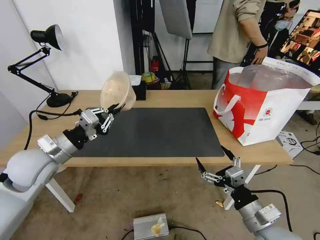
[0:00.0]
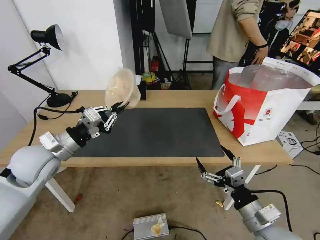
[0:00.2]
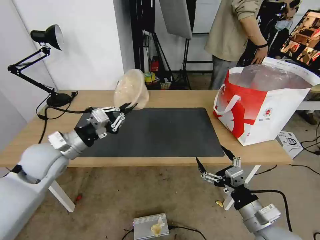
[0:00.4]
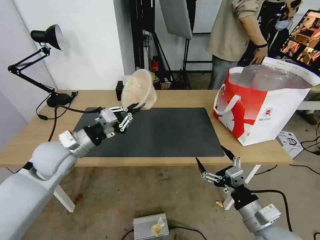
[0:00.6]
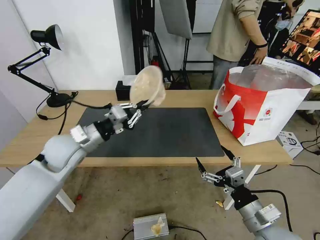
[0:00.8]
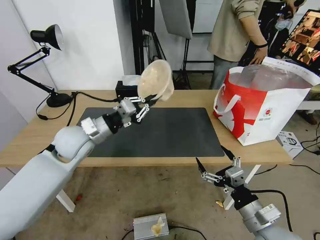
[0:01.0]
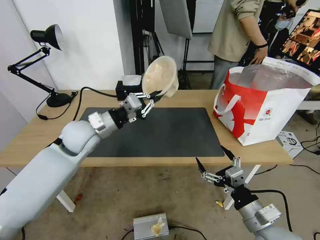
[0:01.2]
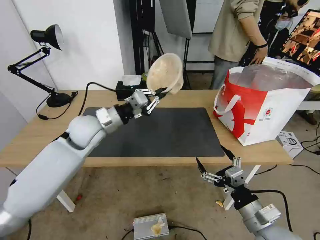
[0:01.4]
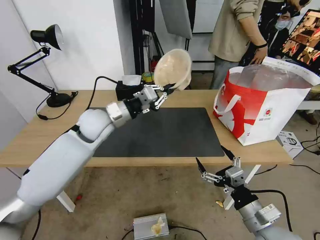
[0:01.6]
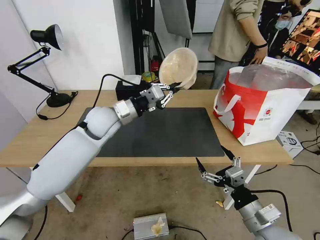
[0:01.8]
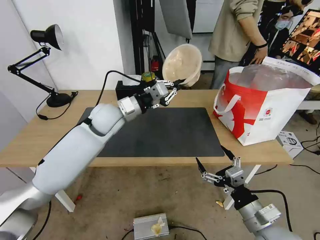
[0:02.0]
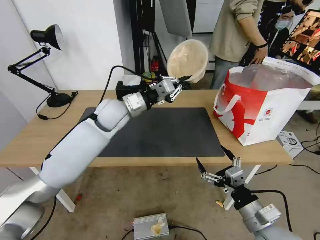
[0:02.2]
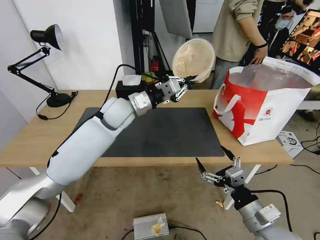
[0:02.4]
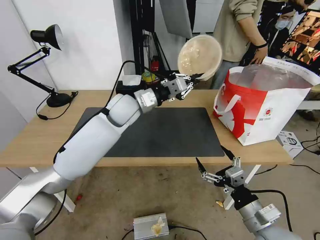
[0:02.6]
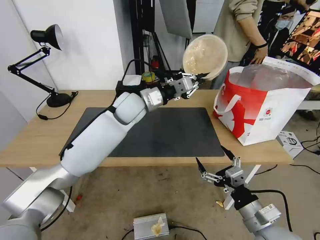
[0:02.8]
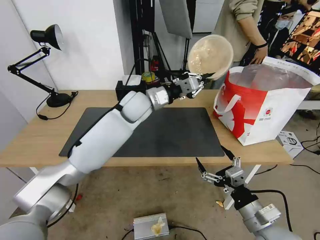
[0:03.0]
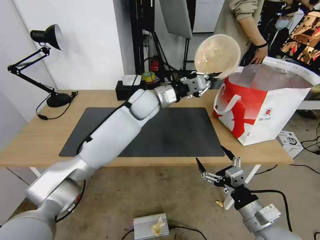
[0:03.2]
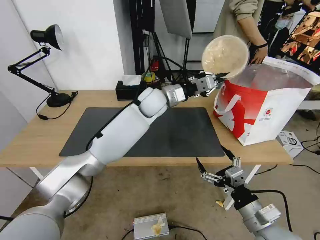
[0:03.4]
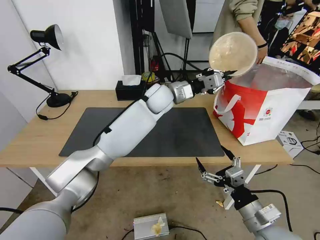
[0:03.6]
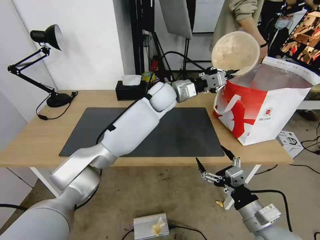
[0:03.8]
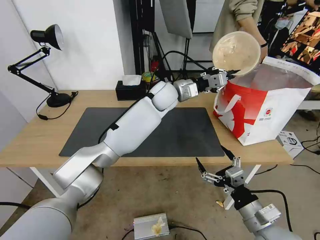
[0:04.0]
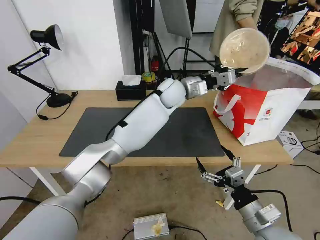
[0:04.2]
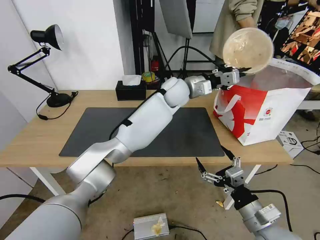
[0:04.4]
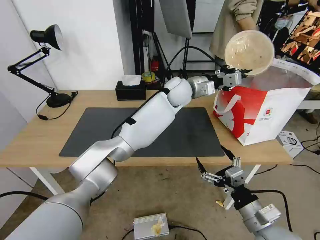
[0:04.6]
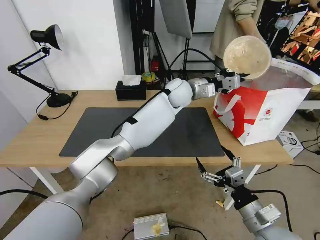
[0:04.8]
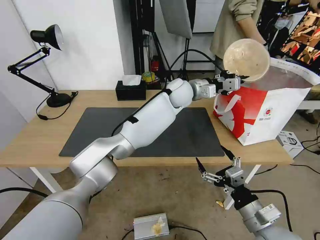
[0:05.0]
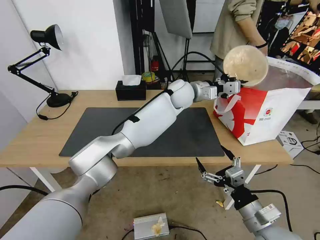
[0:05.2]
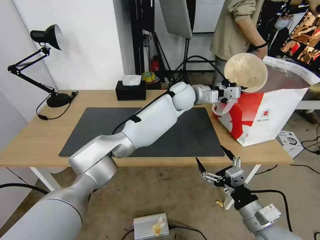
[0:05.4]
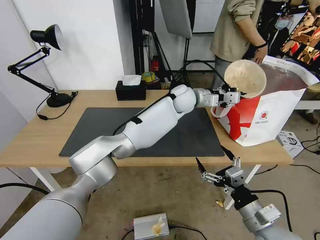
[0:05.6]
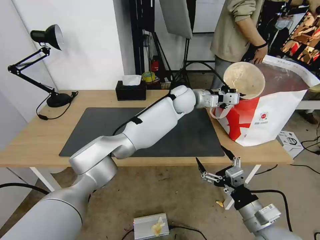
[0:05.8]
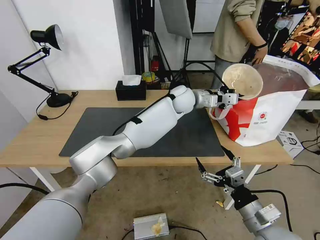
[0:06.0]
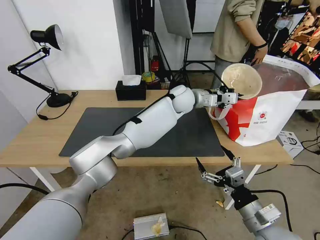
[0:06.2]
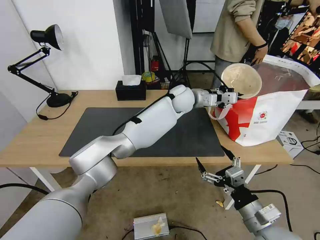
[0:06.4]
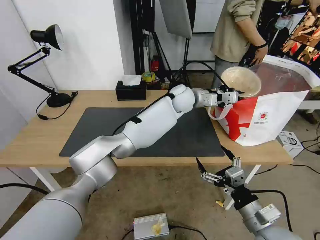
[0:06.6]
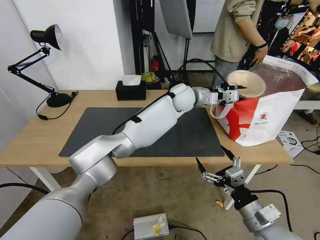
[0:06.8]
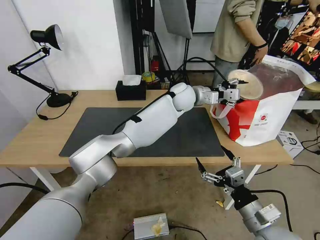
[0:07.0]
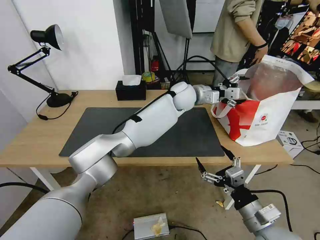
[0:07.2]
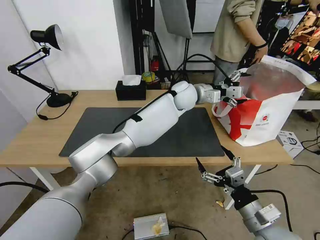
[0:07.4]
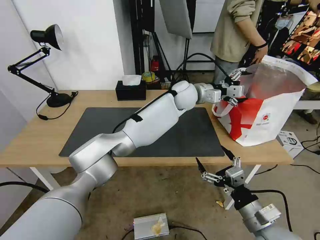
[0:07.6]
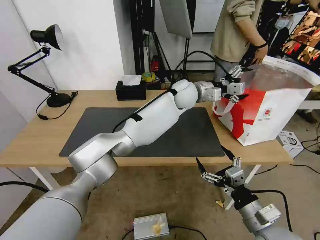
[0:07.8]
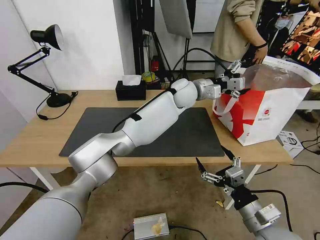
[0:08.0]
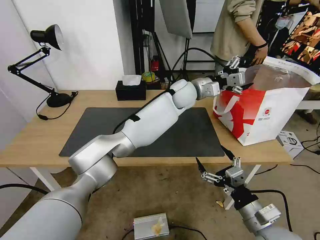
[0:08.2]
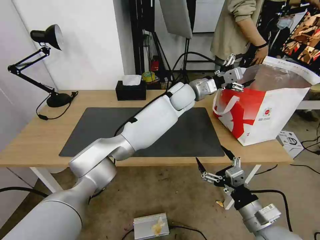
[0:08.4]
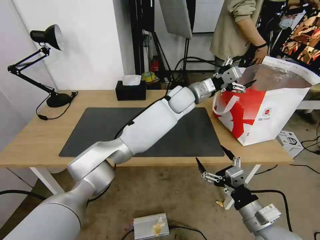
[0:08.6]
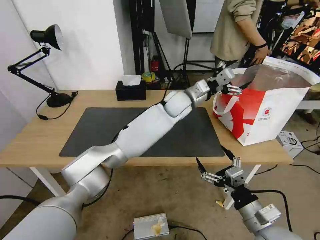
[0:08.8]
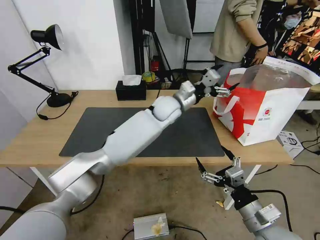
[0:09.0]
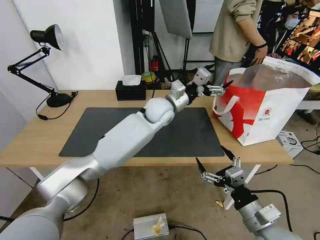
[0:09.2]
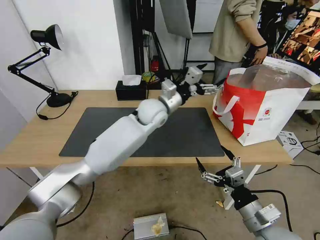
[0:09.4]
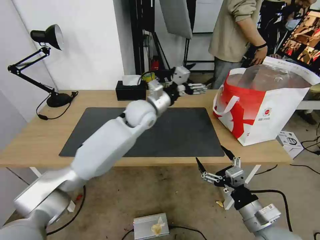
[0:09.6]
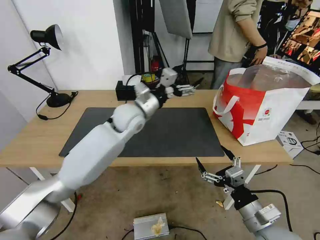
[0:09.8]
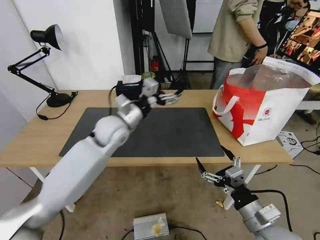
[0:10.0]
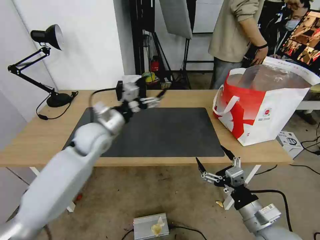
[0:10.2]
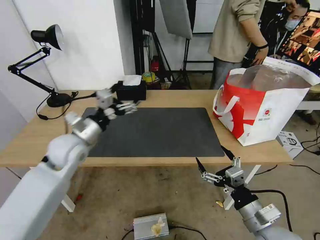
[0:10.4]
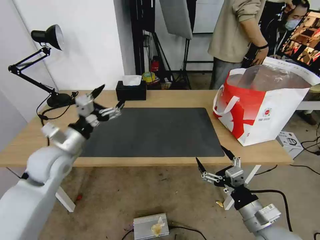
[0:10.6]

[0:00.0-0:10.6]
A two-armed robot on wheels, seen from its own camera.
Task of the whole recording: Pick up the trash from the table and place it into the takeout bag.
0:00.0 to 0:01.6: The left gripper goes approximately 15 cm forward and to the right.
0:01.6 to 0:03.0: The left gripper heads to the right and forward, covering about 15 cm.
0:03.0 to 0:04.6: The left gripper shifts about 15 cm to the right and forward.
0:04.6 to 0:06.0: The grippers stay close to where they were, moving slightly.
0:06.0 to 0:07.6: The left gripper opens up.
0:07.6 to 0:09.0: The left gripper goes roughly 5 cm to the left.
0:09.0 to 0:10.6: The left gripper goes roughly 40 cm to the left and backward.

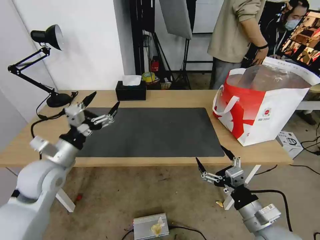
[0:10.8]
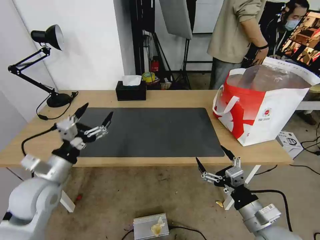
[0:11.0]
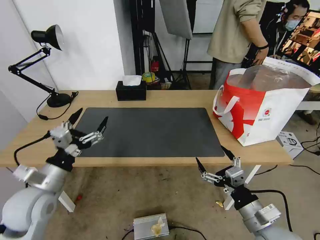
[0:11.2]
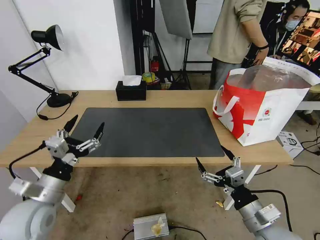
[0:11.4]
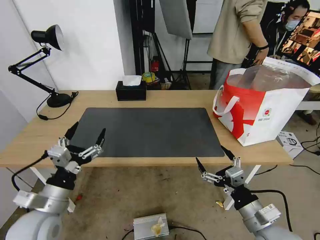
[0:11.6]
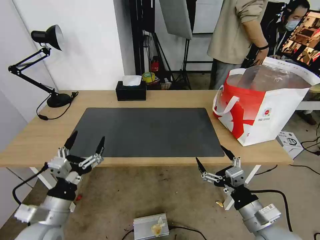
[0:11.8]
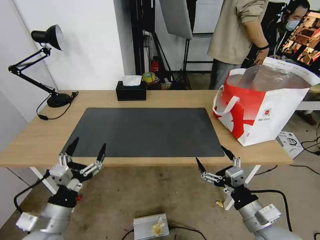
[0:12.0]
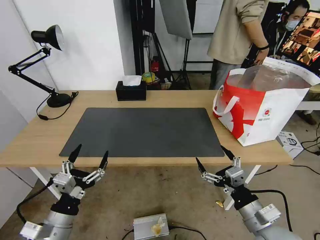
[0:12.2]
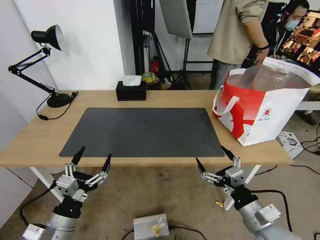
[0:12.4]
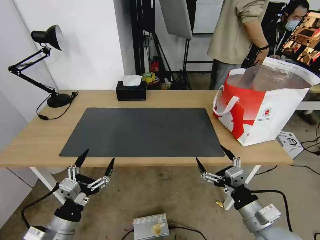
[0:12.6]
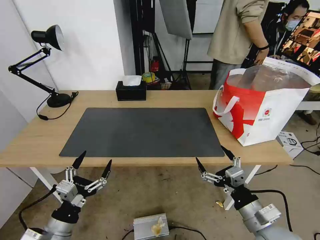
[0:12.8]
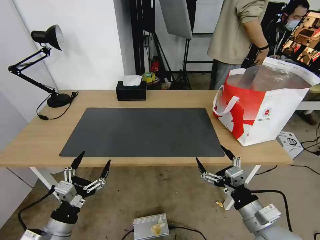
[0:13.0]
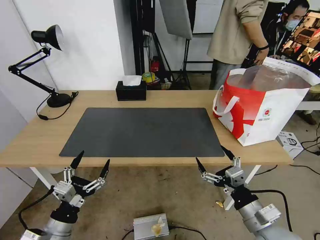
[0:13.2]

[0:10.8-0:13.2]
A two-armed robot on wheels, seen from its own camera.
Task of the whole recording: Pick up the trash from the table and place it into the takeout bag.
0:10.8 to 0:12.0: The left gripper moves backward and downward, some 15 cm.
0:12.0 to 0:13.2: The grippers move only a little.

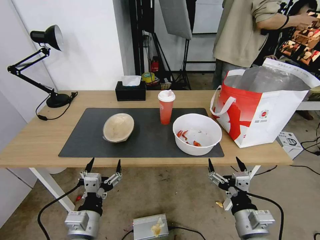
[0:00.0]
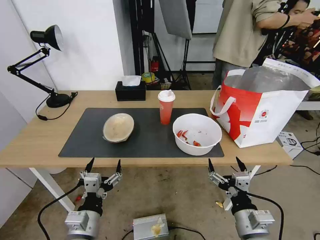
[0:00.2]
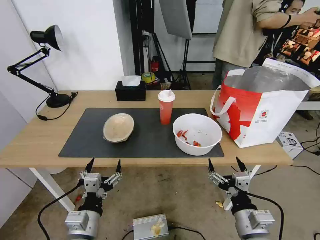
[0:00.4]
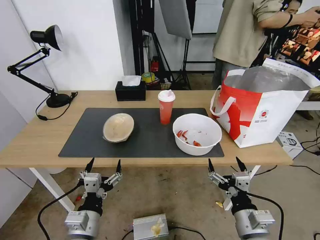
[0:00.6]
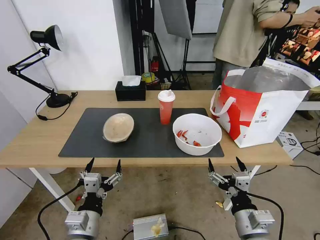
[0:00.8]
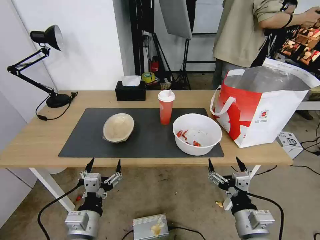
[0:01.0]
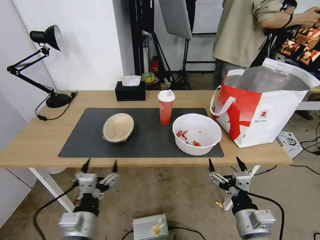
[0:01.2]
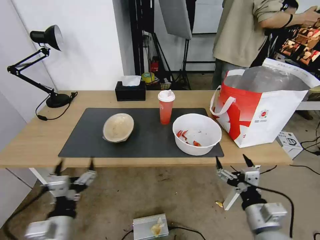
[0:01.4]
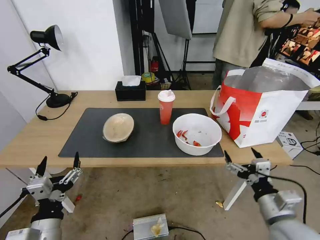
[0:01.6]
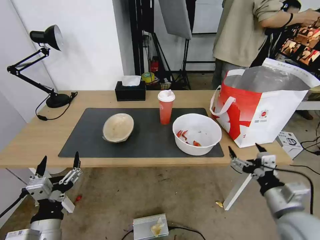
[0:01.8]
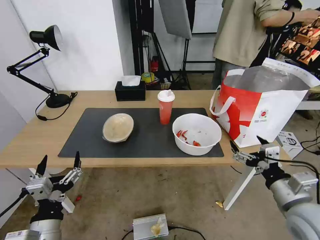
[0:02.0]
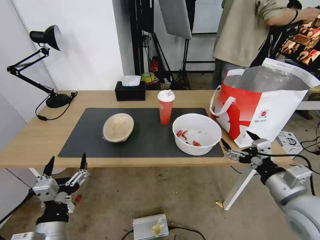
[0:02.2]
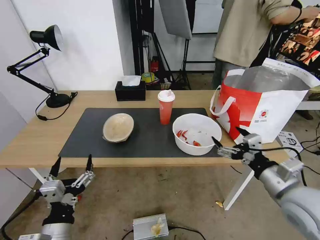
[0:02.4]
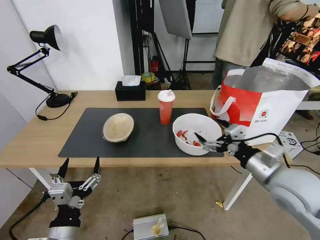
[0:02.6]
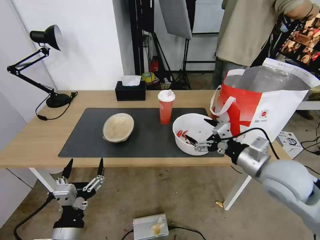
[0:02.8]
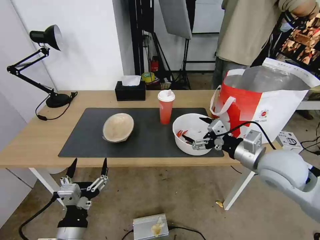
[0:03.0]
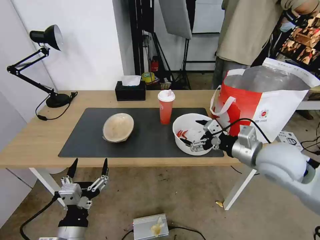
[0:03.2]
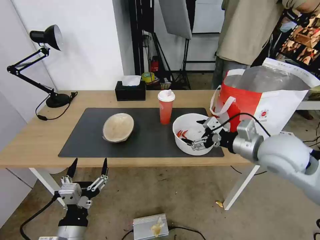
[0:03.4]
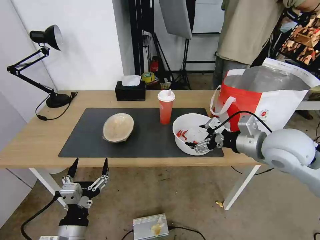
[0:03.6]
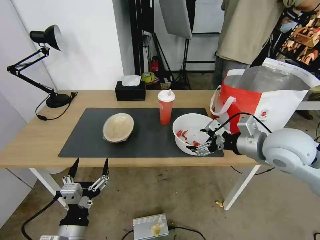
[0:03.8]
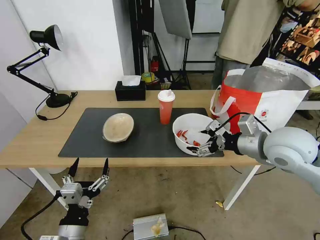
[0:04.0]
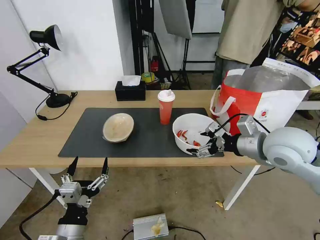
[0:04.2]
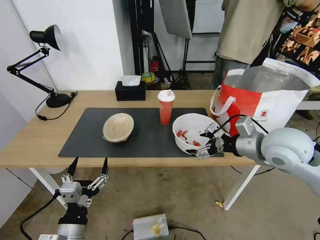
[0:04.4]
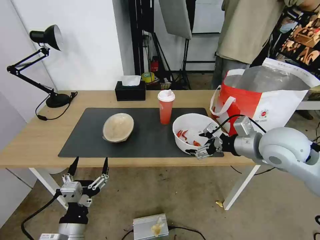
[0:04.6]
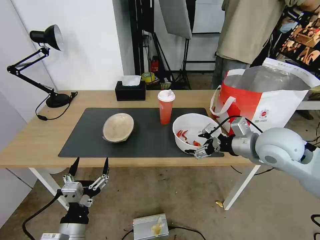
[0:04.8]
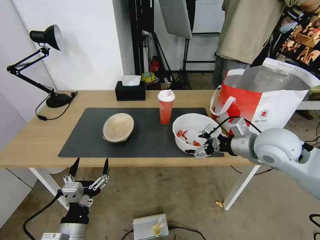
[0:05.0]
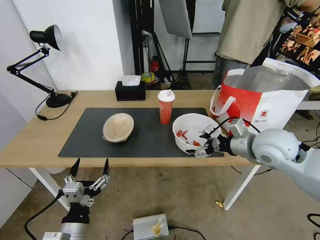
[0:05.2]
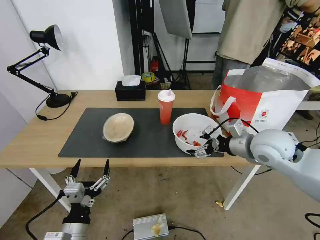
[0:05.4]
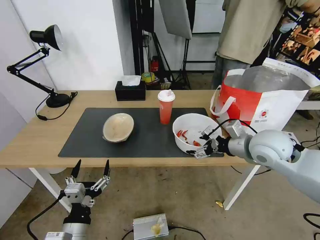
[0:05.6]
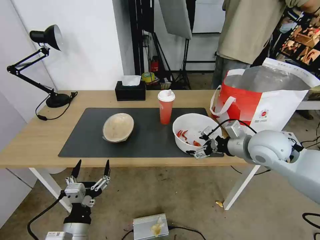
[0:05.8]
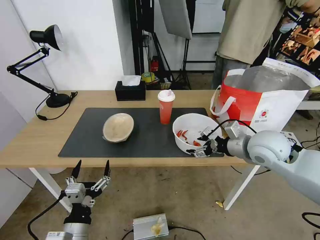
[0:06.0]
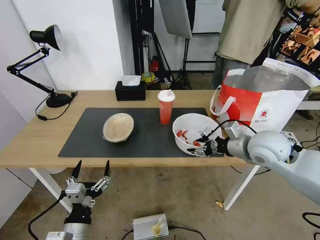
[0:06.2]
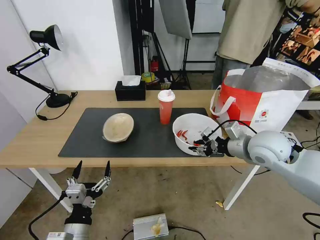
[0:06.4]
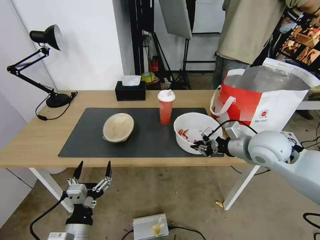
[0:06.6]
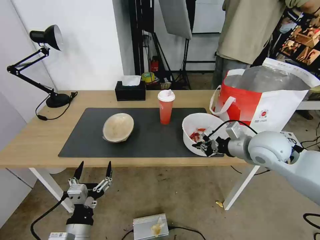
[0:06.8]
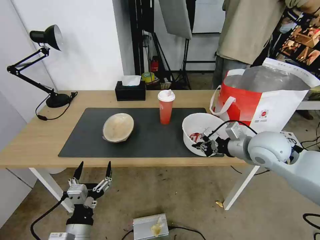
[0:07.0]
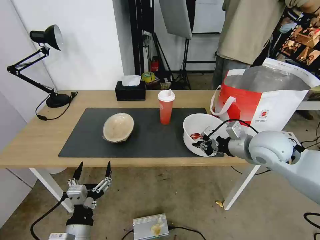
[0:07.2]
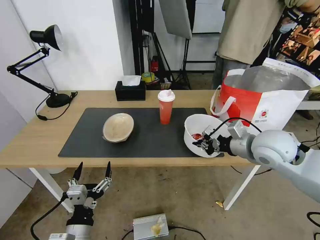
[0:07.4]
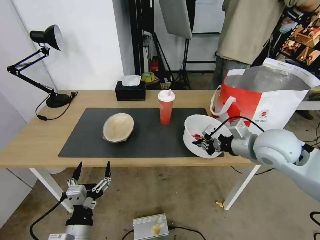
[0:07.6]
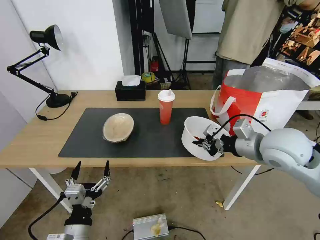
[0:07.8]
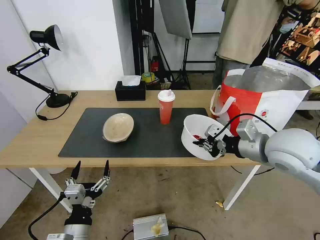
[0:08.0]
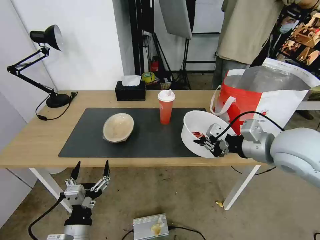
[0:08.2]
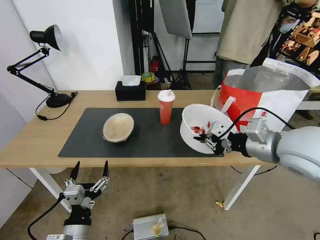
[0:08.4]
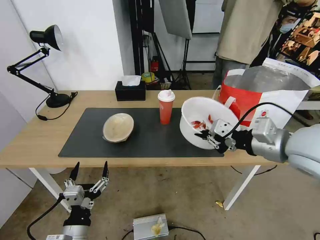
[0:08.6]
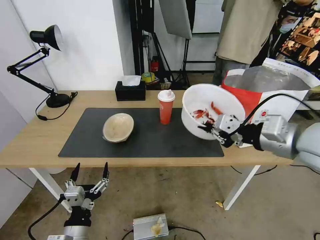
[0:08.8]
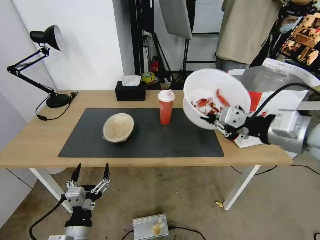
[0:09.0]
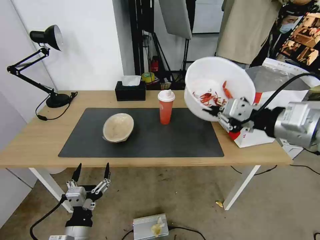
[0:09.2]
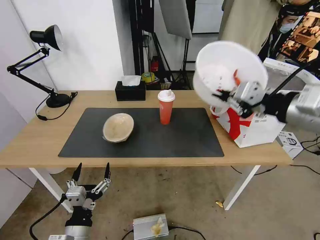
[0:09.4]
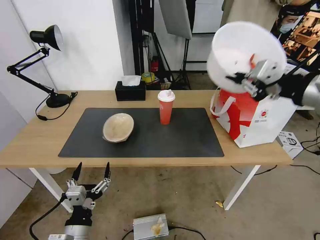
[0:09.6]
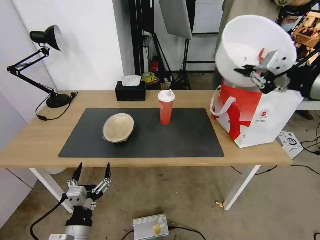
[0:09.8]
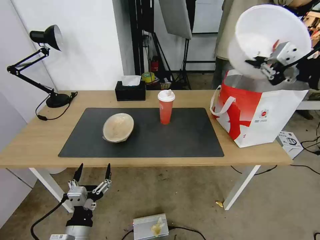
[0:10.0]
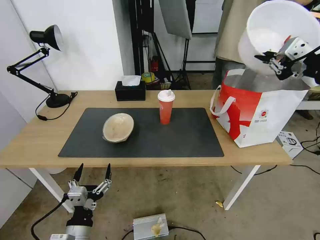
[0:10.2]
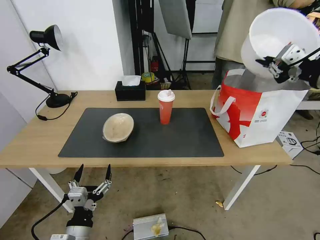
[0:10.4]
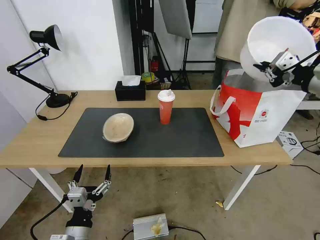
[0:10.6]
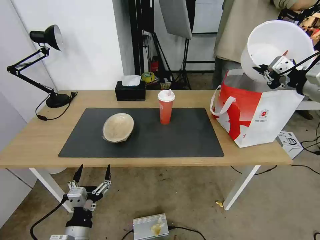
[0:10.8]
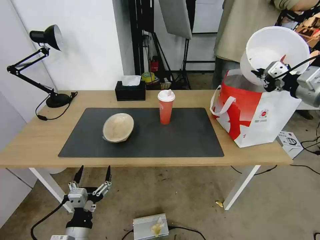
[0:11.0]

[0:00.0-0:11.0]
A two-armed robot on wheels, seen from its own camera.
Task of the whole recording: Pick up the trash from the table and place it into the takeout bag.
0:01.6 to 0:03.2: The left gripper changes place by approximately 5 cm. Meanwhile the right gripper shifts roughly 20 cm forward and upward.
0:04.8 to 0:06.2: The right gripper closes its fingers.
0:06.2 to 0:07.8: The right gripper shifts by approximately 5 cm, and closes up.
0:07.8 to 0:09.4: The right gripper is displaced upward and backward by approximately 15 cm.
0:09.4 to 0:11.0: The right gripper travels forward and to the right by about 15 cm.
